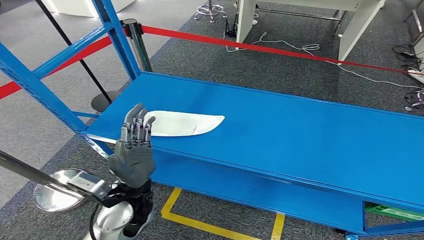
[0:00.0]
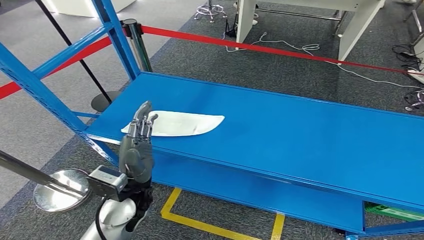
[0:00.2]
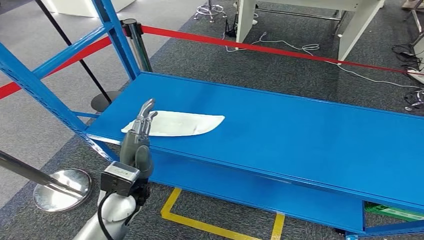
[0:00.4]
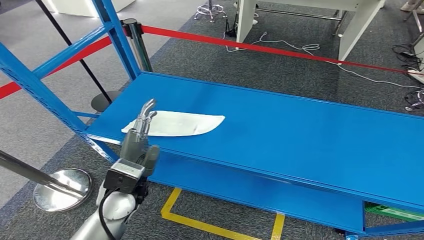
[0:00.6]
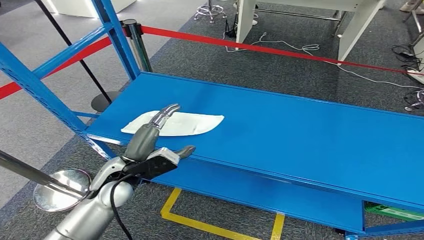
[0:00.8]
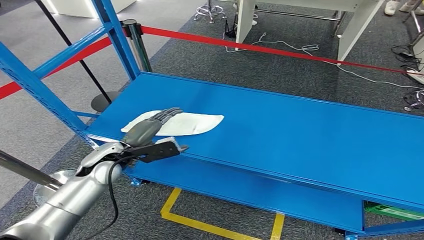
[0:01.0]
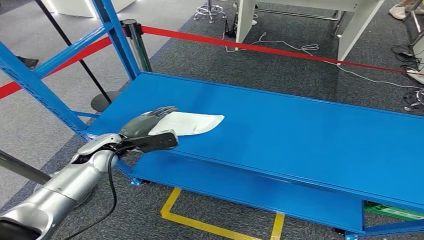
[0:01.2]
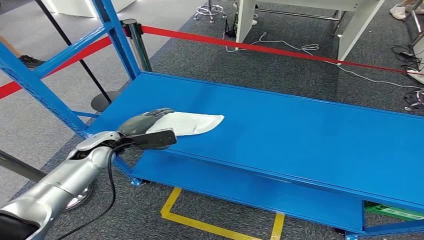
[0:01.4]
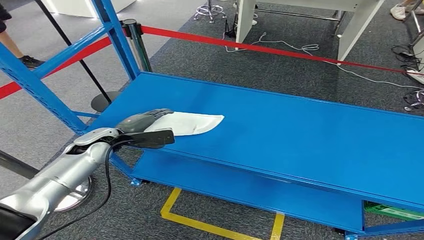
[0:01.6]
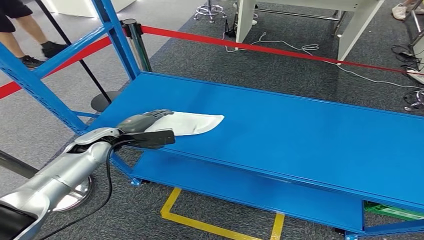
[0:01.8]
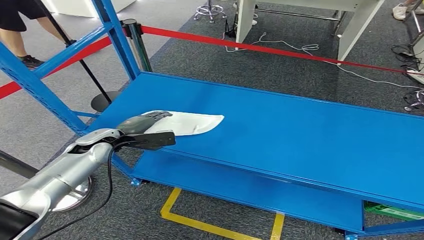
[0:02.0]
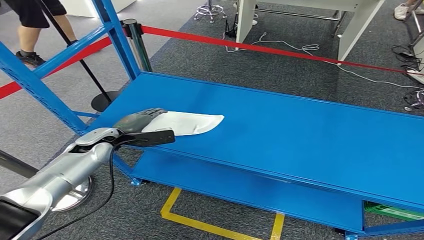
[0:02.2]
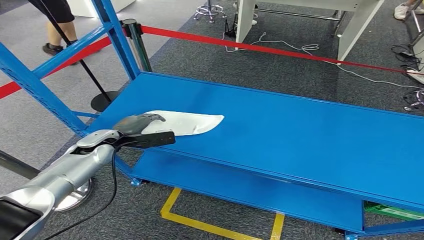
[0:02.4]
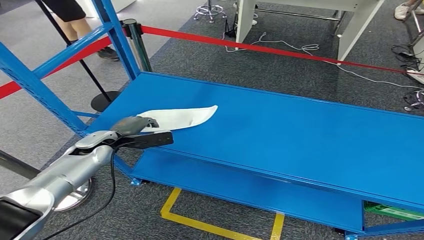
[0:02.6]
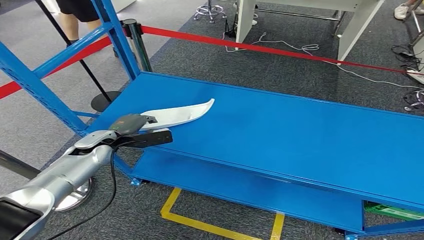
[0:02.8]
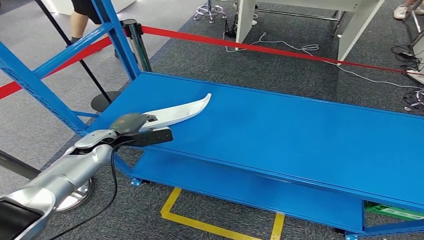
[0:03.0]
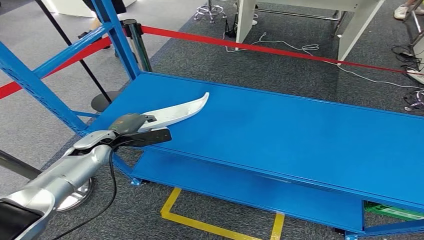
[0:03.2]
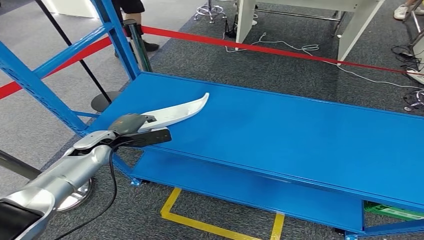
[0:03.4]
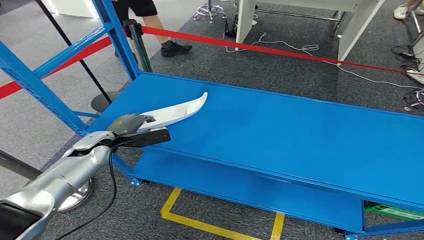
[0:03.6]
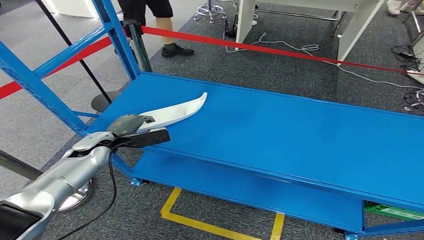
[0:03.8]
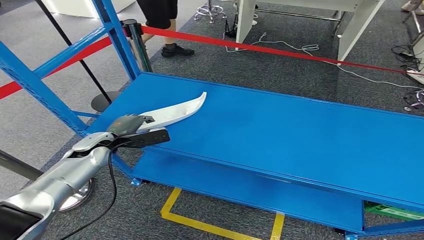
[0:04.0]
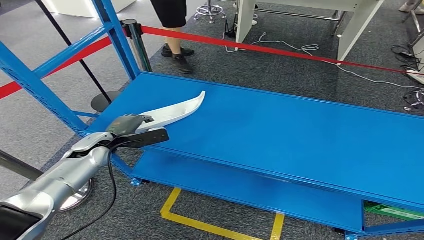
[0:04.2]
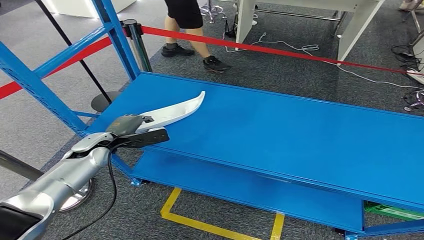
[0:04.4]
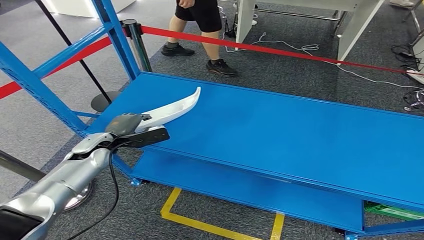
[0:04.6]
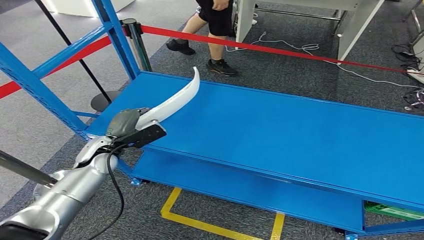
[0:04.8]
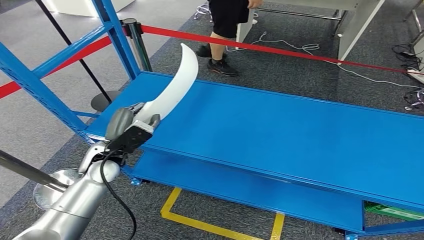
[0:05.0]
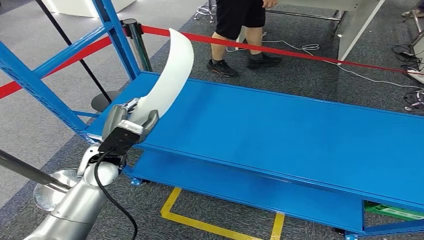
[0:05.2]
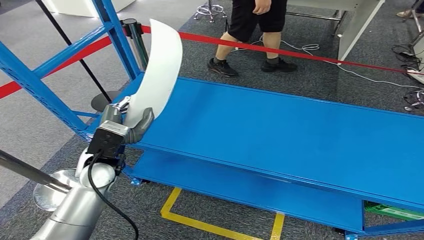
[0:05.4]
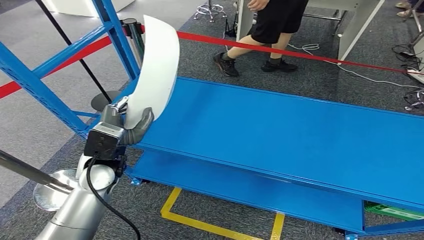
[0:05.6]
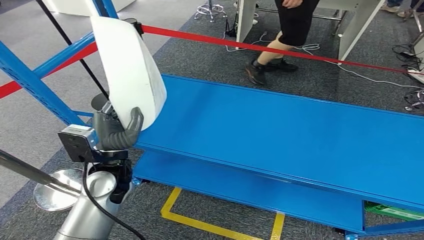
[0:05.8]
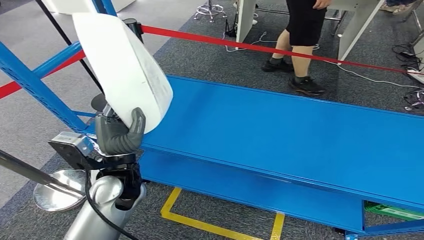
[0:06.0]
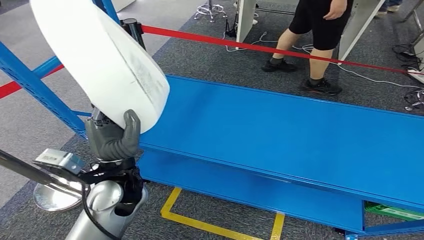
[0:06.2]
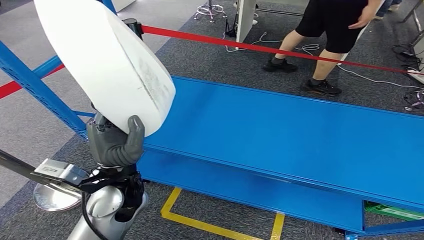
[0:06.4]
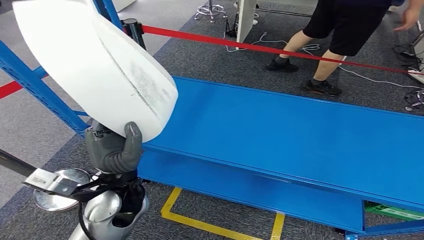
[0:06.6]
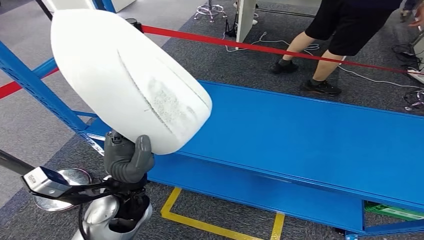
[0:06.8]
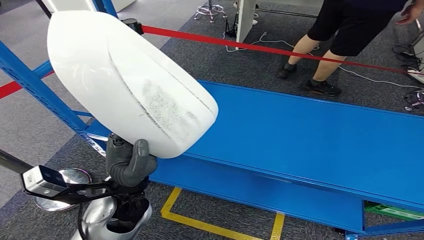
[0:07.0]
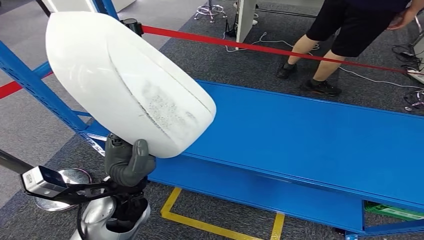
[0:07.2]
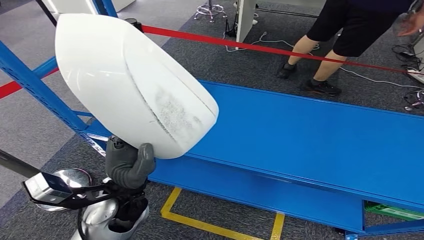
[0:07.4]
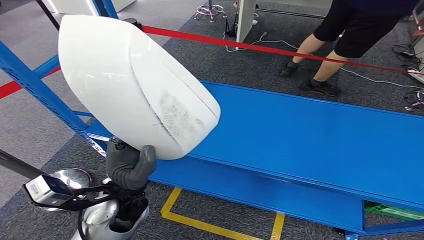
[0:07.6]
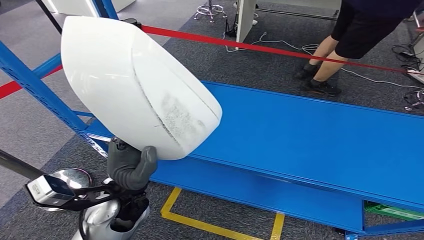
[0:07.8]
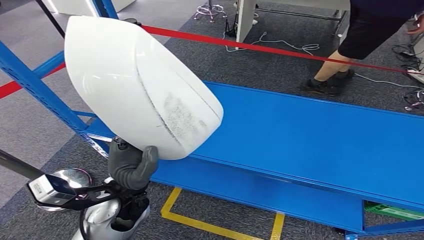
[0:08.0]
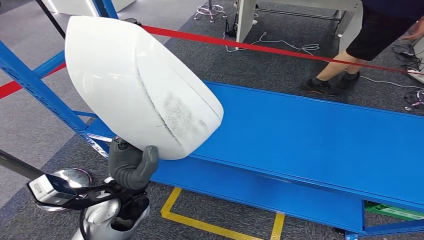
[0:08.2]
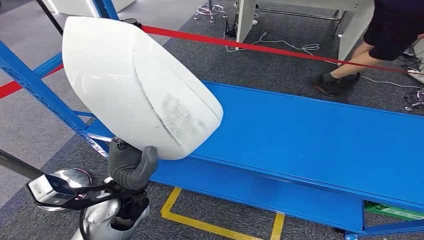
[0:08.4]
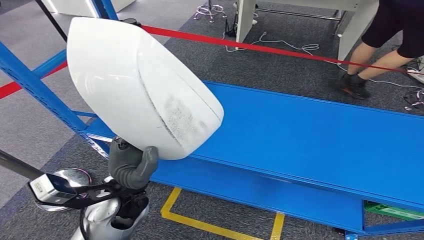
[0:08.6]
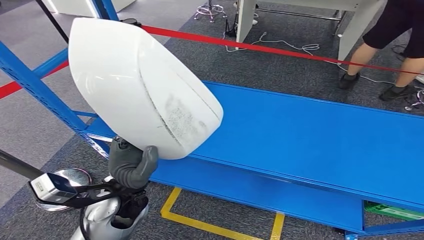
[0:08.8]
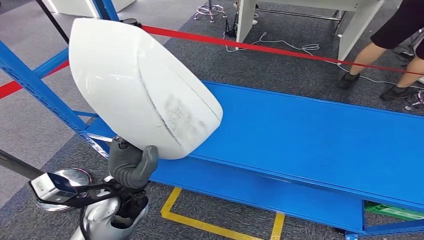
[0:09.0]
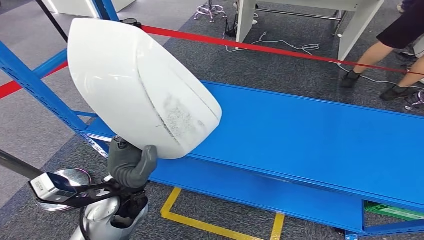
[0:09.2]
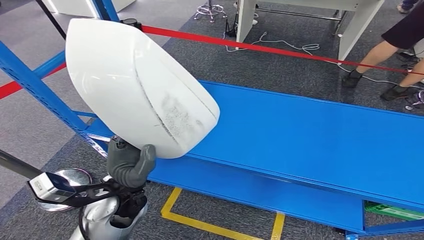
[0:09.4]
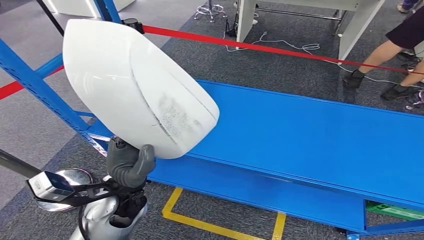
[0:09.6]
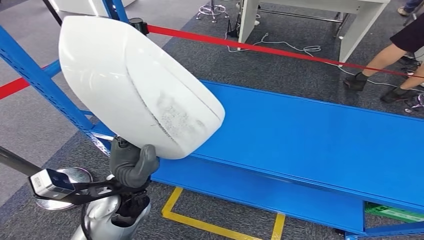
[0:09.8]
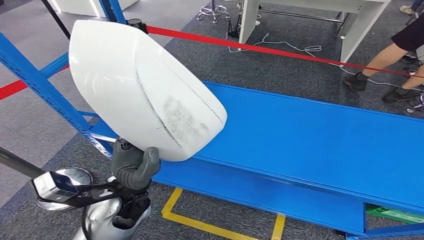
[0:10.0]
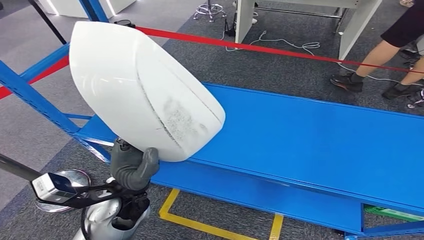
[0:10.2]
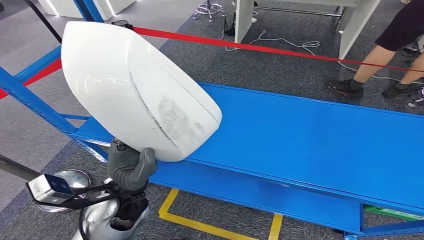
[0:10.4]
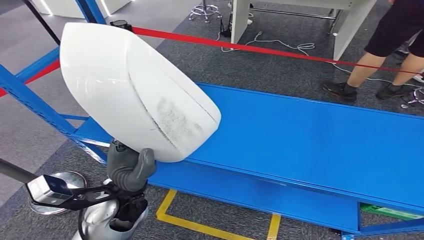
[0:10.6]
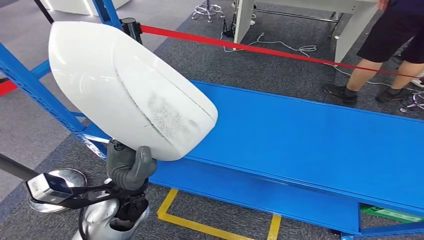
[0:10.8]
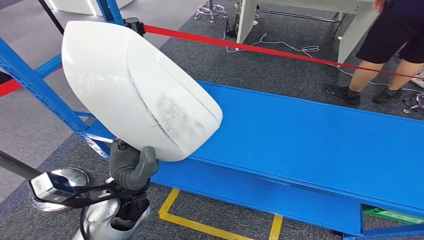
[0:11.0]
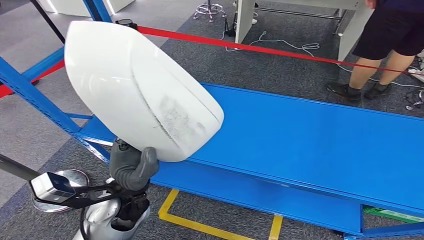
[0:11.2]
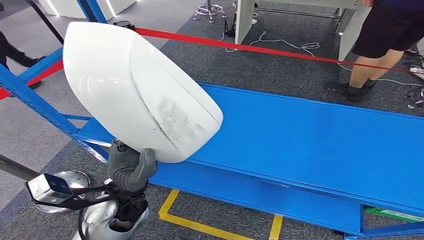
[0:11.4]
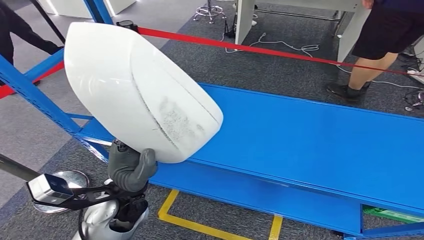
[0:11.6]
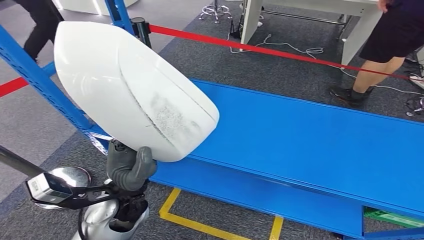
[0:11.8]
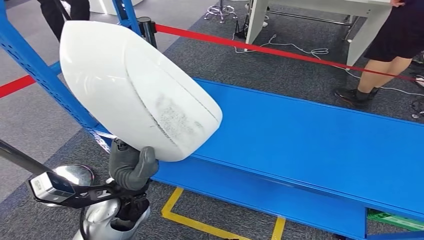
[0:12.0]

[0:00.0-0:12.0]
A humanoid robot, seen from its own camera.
Step, 0:00.0 to 0:08.0: Pick up the small component from the shelf.
0:00.0 to 0:01.6: The left hand shifts roughly 20 cm forward and to the left.
0:01.6 to 0:03.0: The hands make only small movements.
0:03.0 to 0:04.4: Neither hand changes place.
0:07.6 to 0:09.0: There are only small adjustments of the hands.

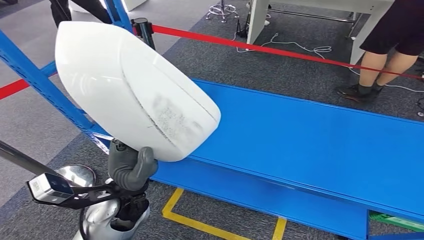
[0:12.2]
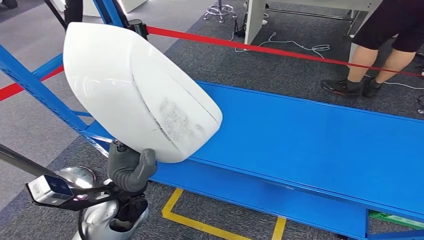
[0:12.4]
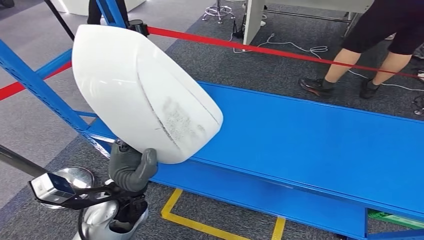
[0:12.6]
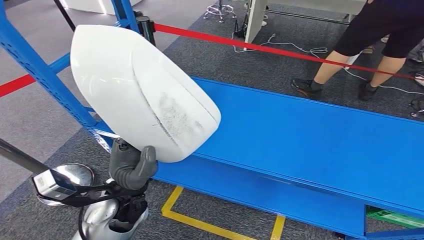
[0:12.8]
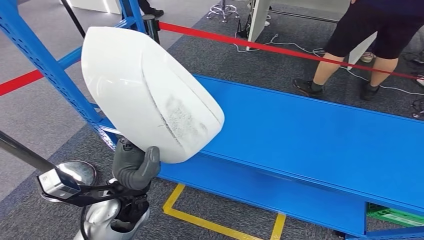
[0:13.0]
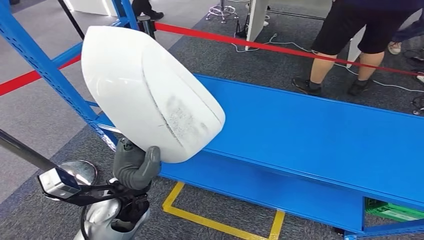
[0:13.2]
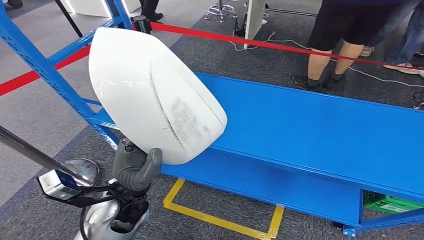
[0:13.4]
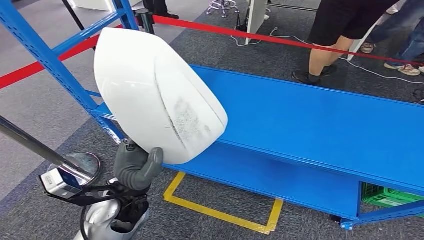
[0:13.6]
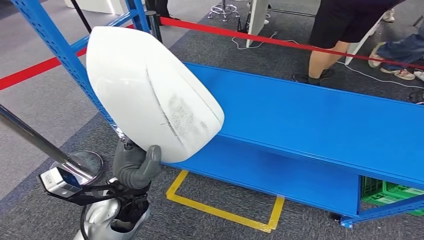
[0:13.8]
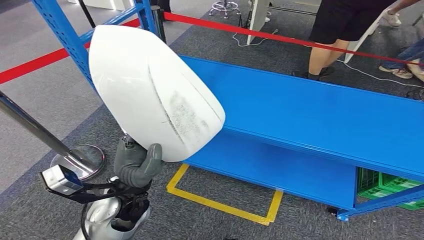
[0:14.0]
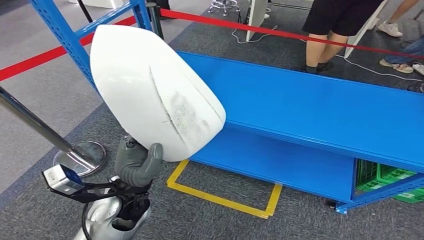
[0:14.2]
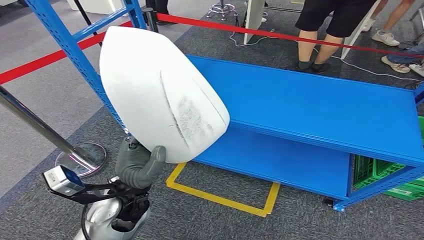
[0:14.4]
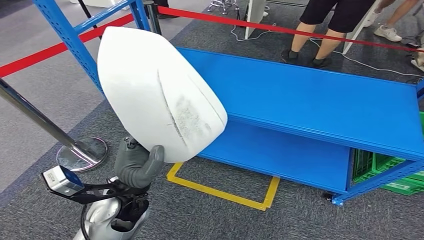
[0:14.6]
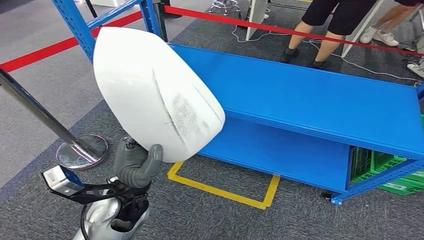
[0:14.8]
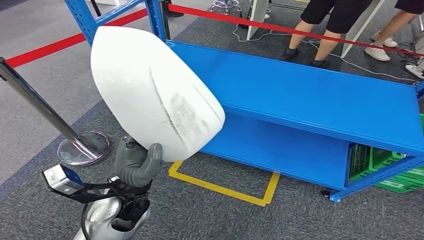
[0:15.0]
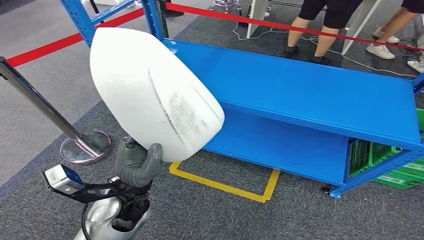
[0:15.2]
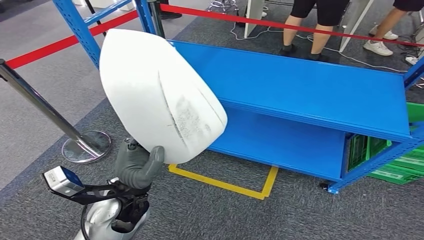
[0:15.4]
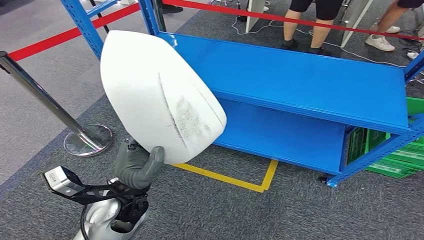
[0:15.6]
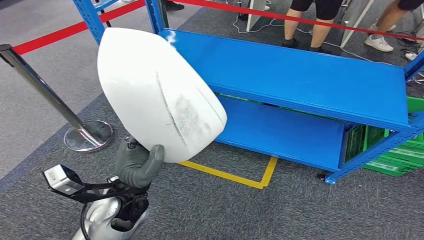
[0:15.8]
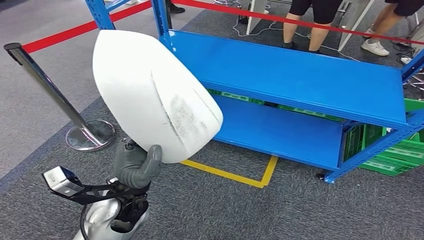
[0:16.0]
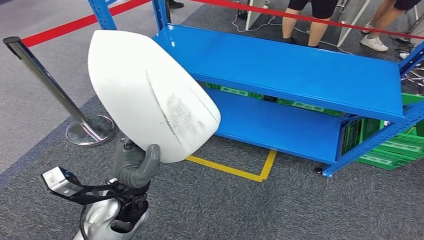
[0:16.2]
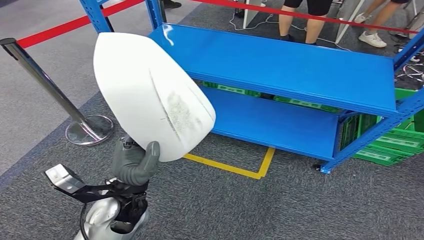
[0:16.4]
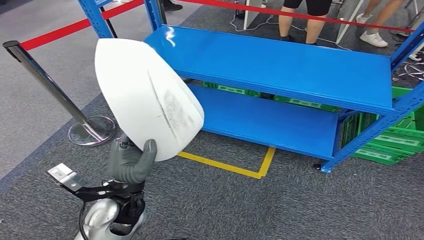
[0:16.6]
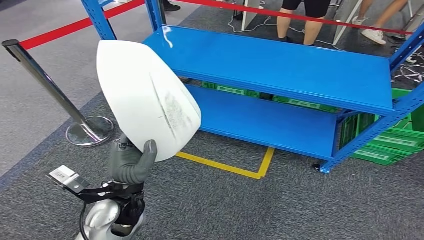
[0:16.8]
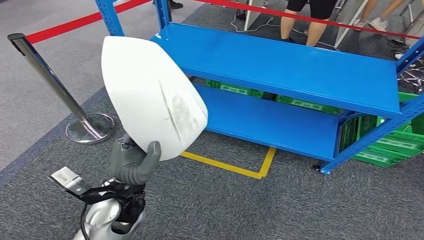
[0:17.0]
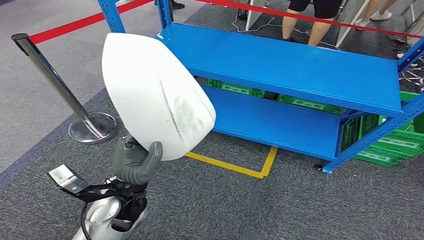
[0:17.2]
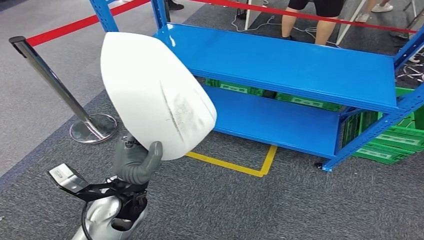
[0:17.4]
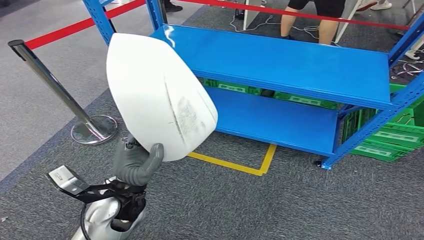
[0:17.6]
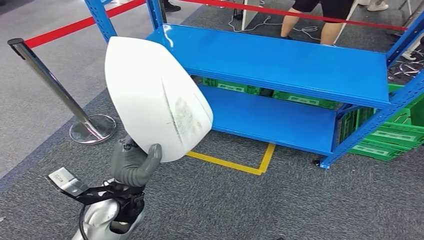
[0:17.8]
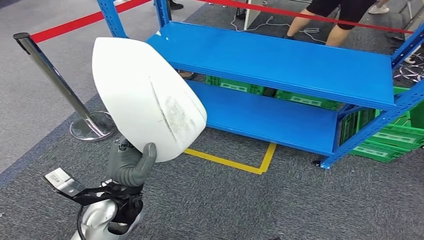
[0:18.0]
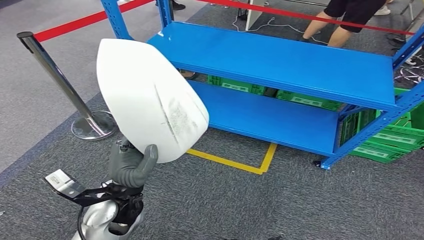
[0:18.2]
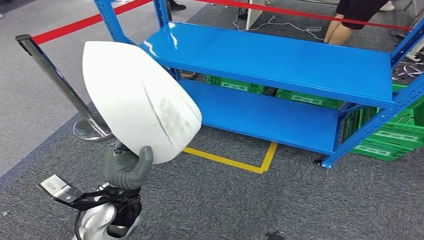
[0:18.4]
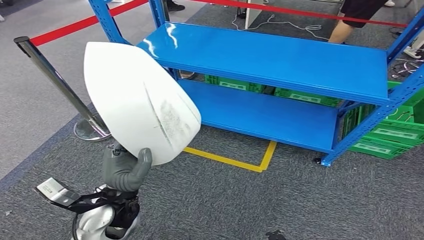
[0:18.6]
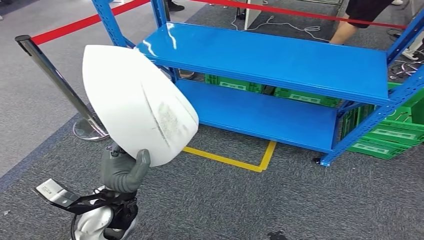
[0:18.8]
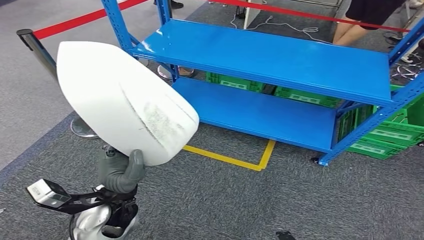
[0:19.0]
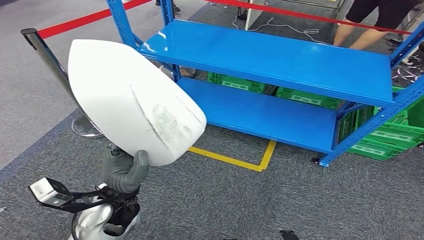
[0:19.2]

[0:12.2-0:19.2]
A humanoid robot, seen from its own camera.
0:16.4 to 0:17.8: The hands make only small movements.
